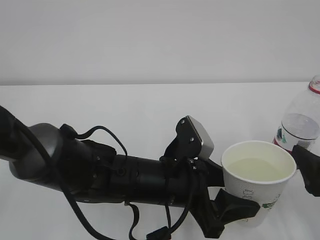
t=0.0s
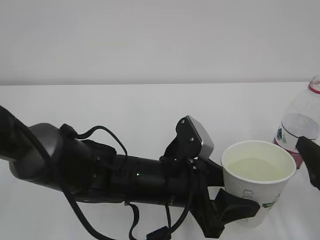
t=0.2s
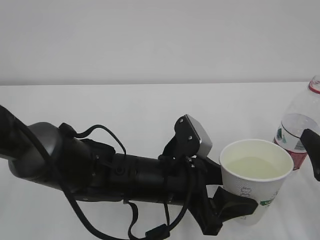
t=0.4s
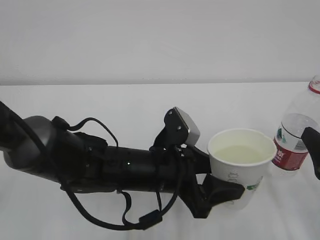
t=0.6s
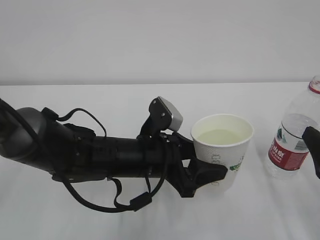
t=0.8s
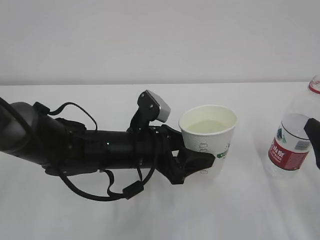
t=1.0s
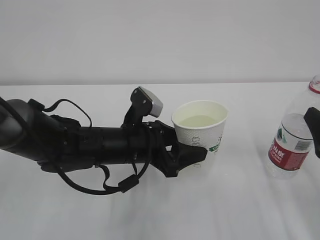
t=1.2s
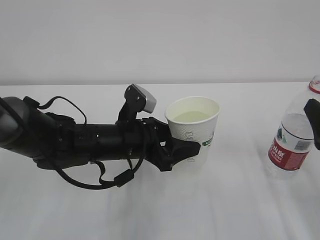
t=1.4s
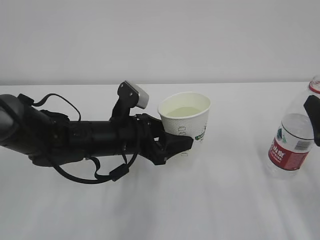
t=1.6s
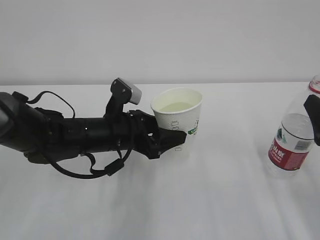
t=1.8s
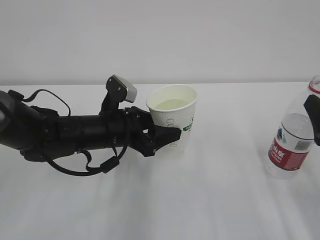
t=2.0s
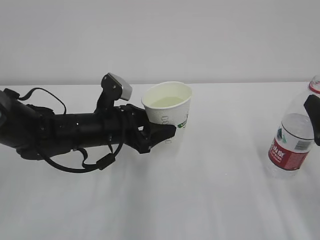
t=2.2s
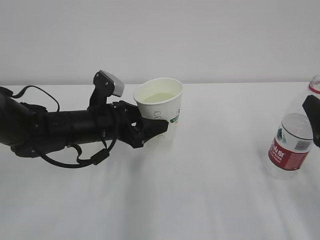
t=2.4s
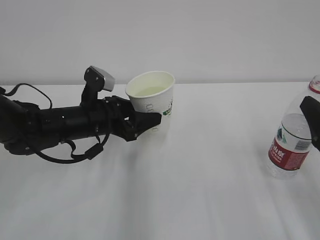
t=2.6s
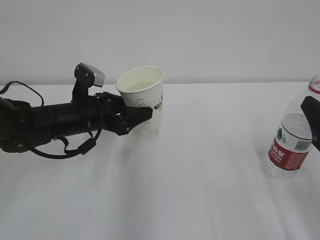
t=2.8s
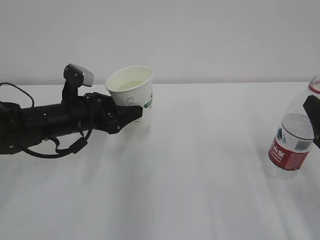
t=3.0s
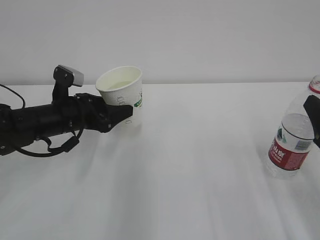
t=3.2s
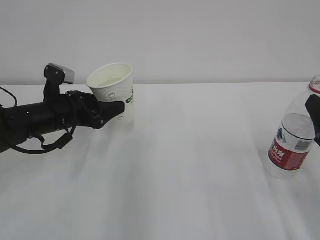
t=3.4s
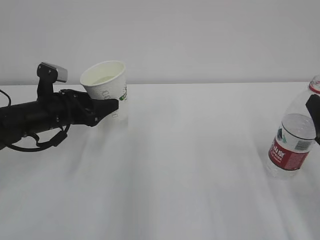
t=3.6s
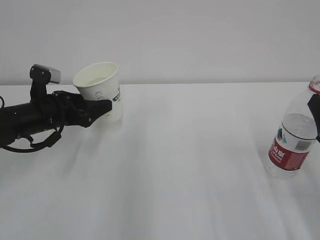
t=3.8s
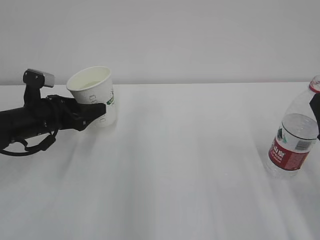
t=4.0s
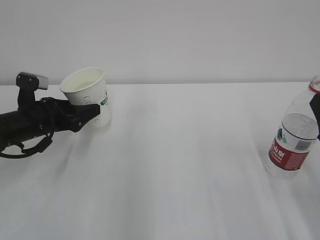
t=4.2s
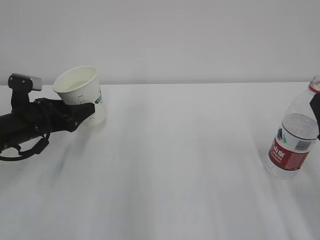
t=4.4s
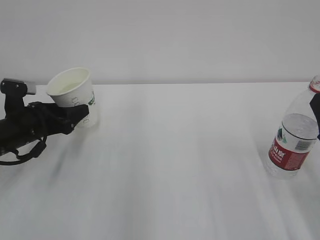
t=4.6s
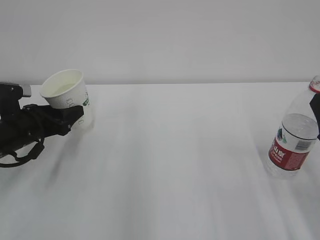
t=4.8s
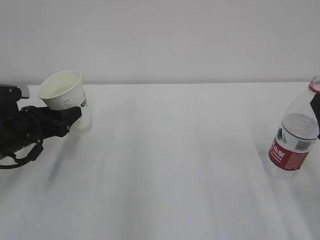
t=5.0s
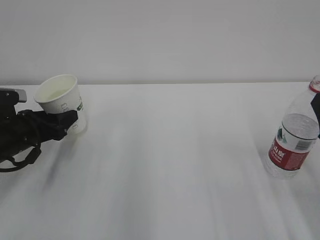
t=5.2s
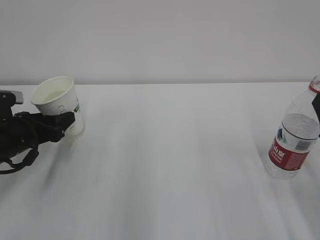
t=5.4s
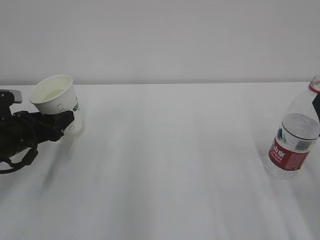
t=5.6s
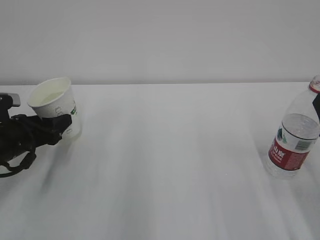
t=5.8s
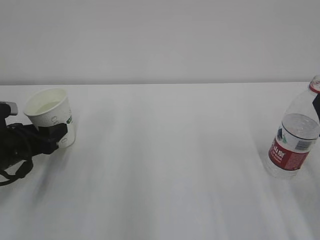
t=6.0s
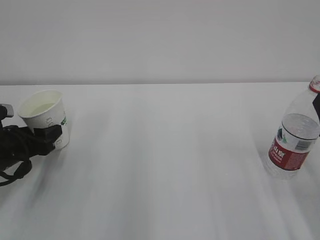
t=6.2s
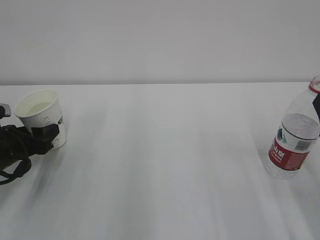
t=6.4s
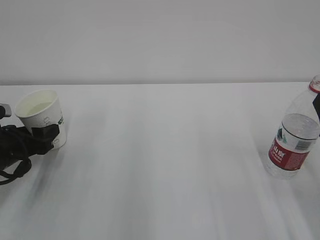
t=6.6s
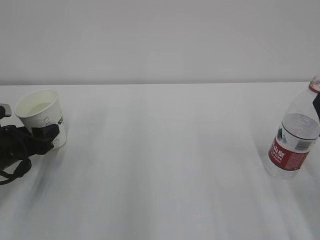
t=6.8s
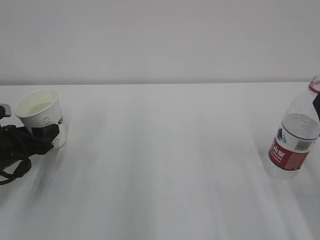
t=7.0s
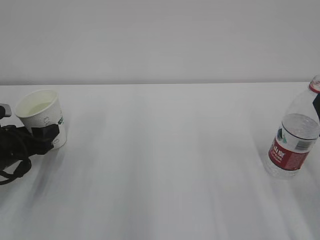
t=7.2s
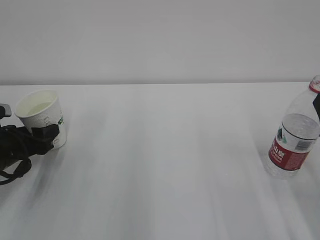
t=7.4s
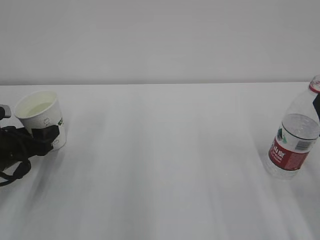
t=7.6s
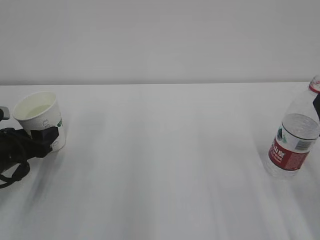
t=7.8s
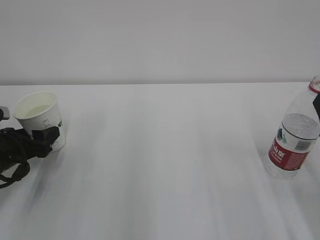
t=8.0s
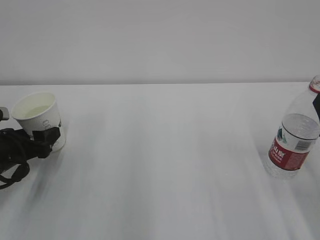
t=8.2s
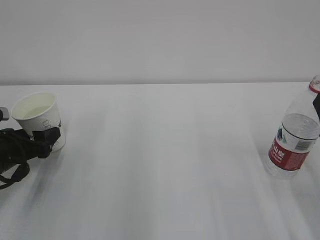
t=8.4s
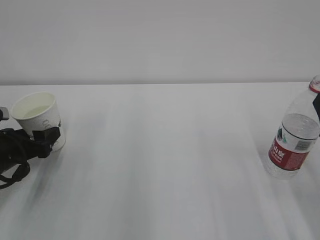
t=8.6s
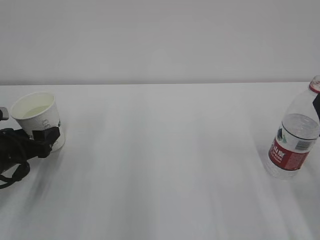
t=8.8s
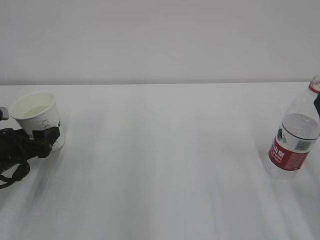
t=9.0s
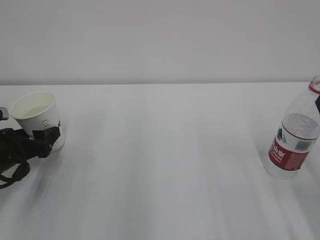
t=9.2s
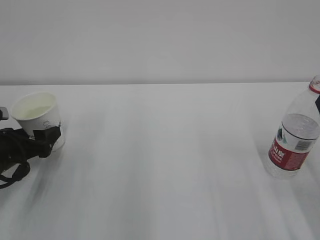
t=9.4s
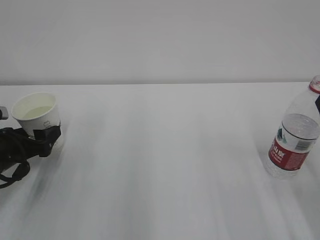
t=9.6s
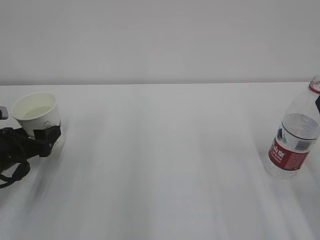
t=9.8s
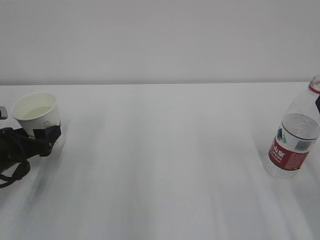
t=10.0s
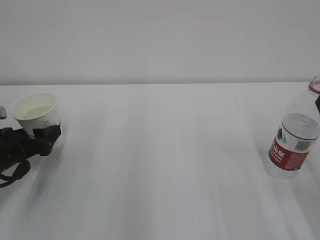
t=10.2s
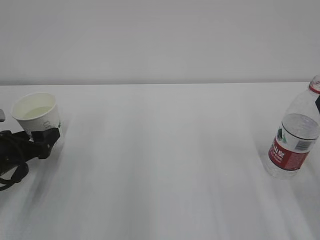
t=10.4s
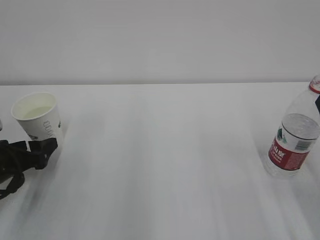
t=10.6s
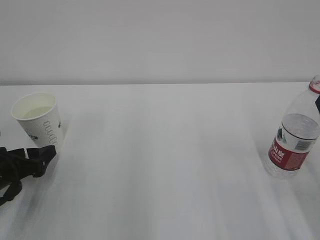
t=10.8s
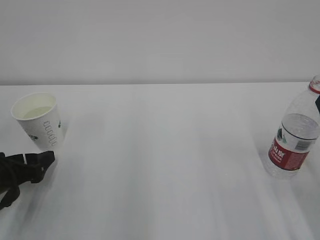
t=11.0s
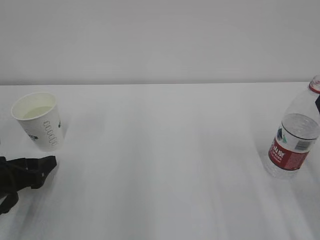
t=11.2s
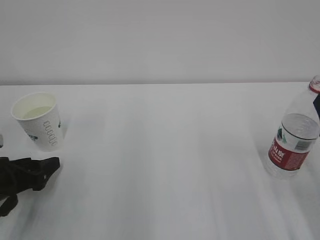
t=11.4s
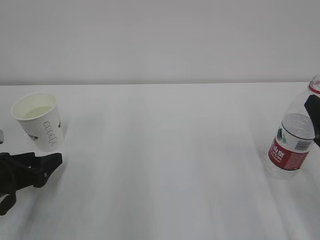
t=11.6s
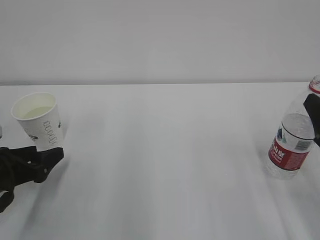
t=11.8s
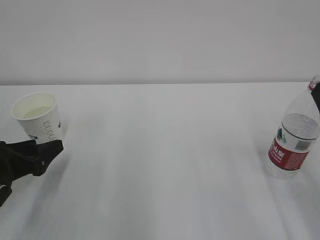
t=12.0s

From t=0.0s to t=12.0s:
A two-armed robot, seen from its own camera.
From t=0.0s to t=1.6s: The left gripper shifts some 10 cm forward and to the left. The right gripper changes place by some 5 cm.
From t=1.6s to t=3.0s: The left gripper heads to the left, covering about 10 cm.
From t=3.0s to t=4.4s: The left gripper travels to the left by roughly 10 cm.
From t=4.4s to t=6.0s: The left gripper moves approximately 5 cm.
From t=6.0s to t=7.6s: There are only small adjustments of the grippers.
From t=7.6s to t=9.0s: The left gripper opens up.
From t=9.0s to t=10.4s: Both grippers stay put.
From t=10.4s to t=12.0s: The left gripper changes place by some 5 cm.

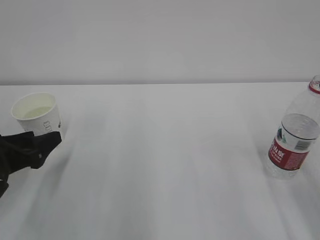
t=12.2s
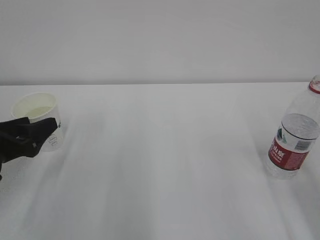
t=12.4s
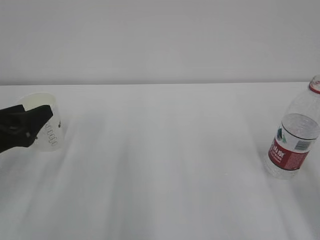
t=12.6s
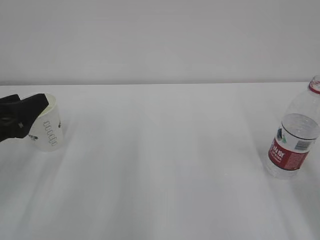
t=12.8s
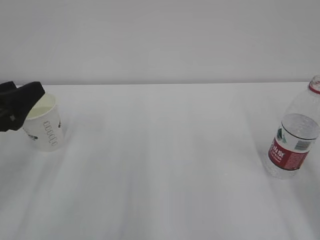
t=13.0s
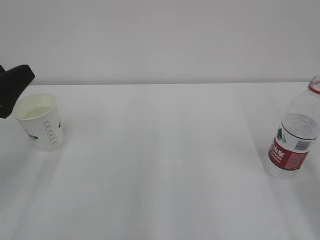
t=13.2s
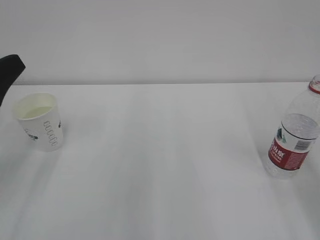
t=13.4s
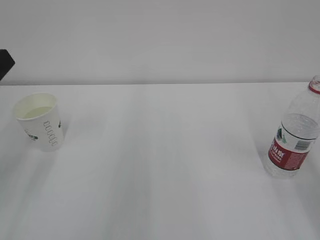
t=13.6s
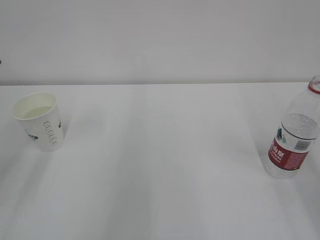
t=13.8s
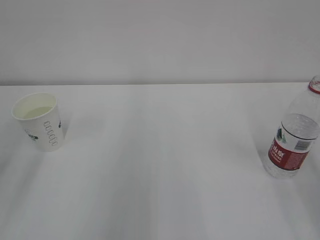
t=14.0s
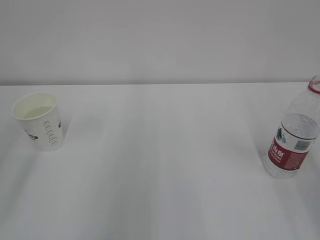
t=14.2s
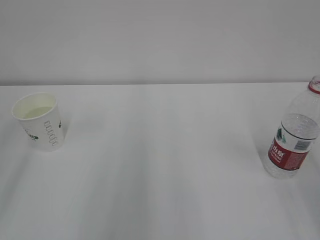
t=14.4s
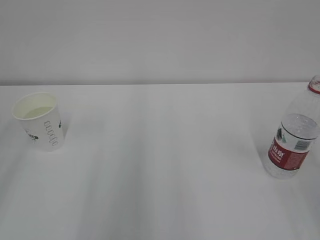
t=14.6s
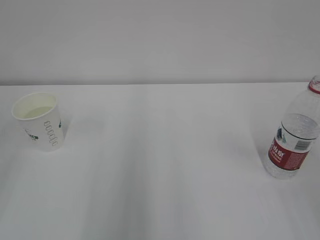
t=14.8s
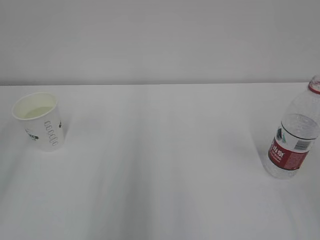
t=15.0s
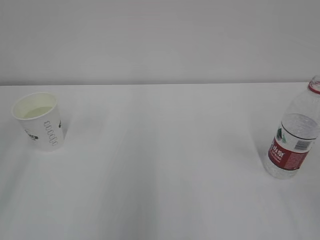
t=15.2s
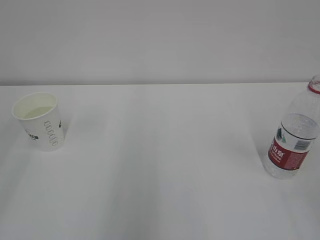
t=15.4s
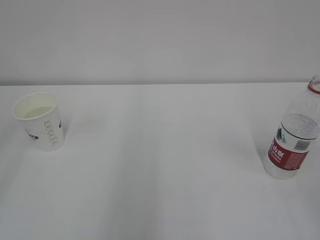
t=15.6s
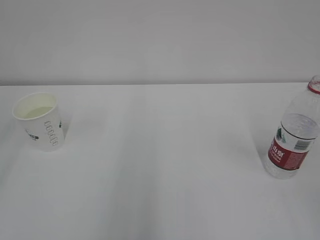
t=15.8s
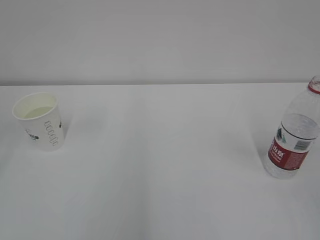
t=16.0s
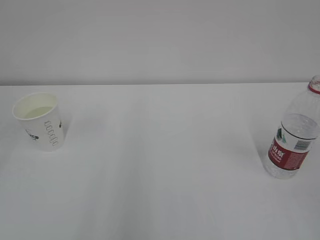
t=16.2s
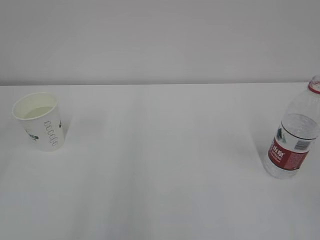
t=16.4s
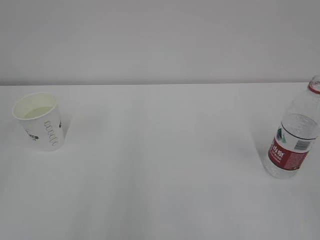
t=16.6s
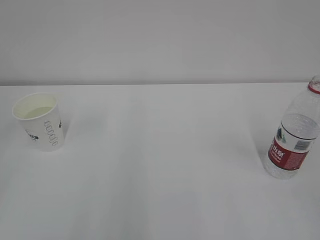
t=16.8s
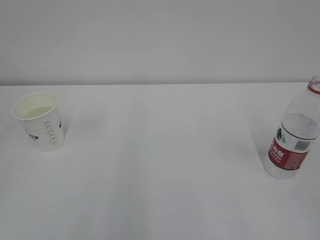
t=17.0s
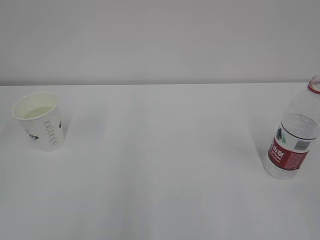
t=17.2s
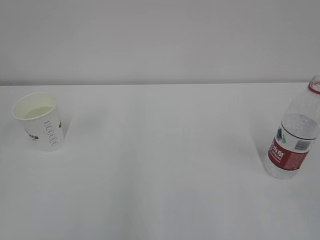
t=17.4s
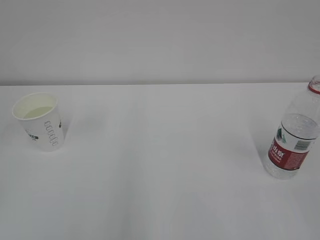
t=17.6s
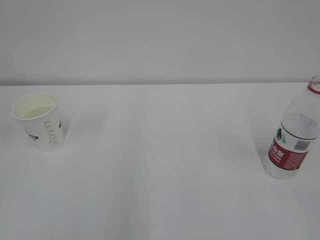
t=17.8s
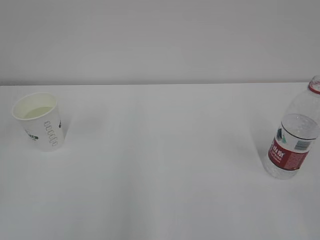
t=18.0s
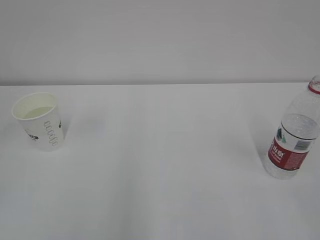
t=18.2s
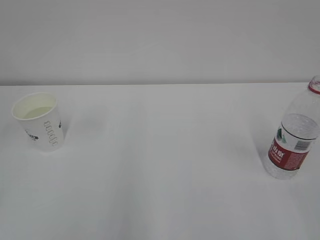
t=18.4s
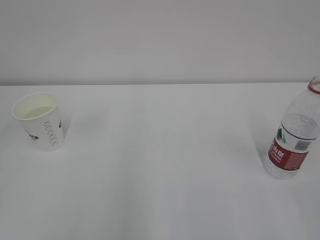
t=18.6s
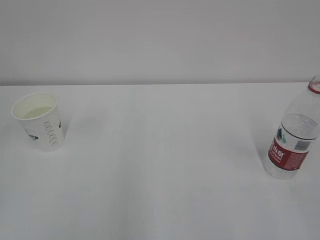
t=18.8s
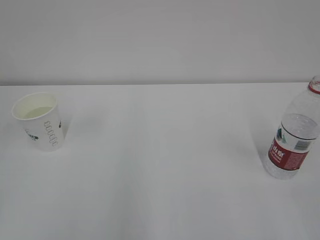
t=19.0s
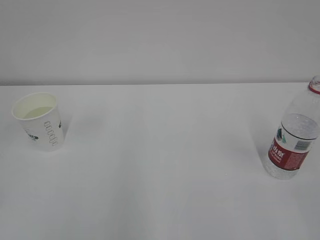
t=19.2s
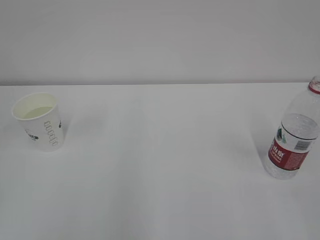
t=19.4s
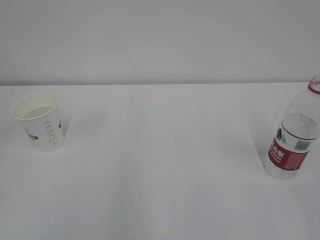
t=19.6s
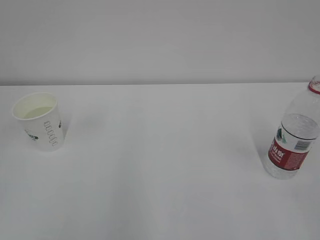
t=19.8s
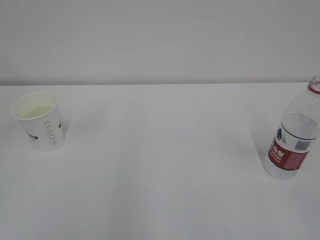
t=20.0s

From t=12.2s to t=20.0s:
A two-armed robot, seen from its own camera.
From t=12.2s to t=13.8s: The left gripper shifts roughly 15 cm upward and backward.
